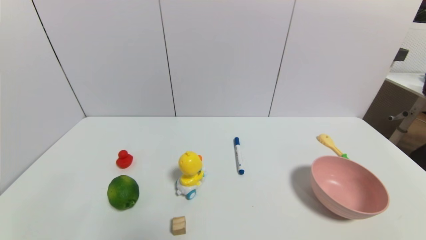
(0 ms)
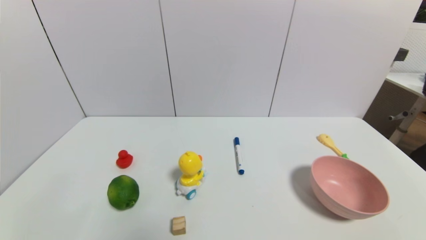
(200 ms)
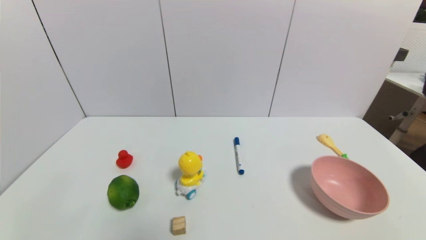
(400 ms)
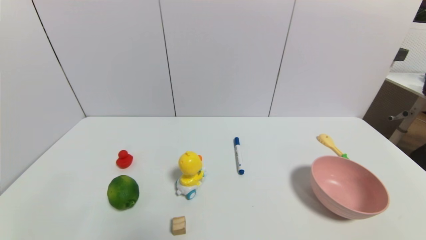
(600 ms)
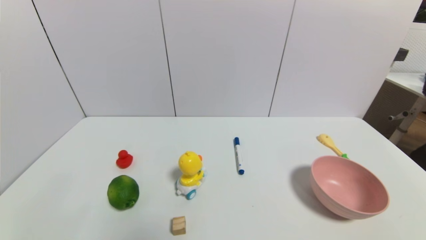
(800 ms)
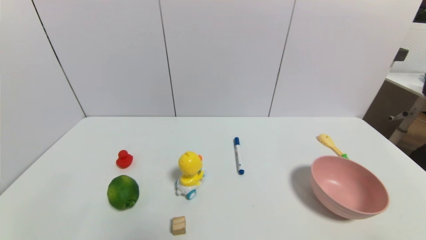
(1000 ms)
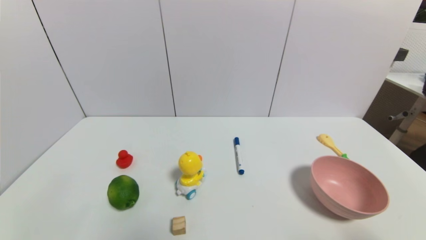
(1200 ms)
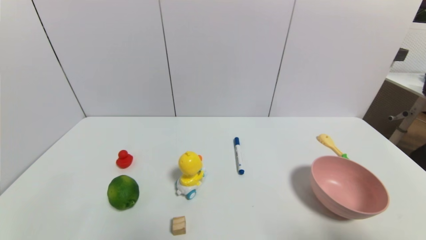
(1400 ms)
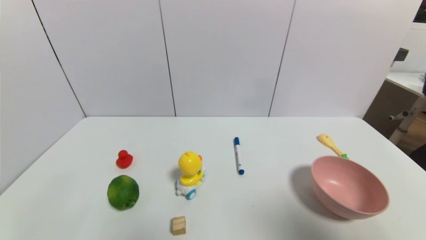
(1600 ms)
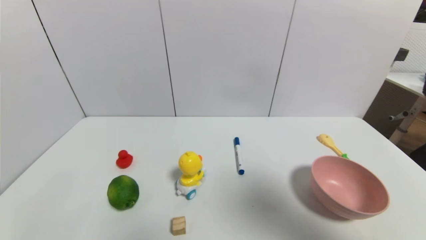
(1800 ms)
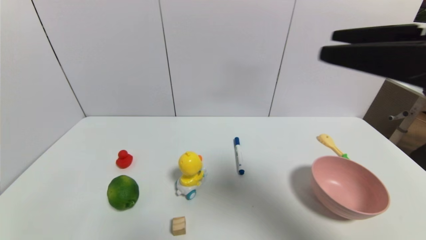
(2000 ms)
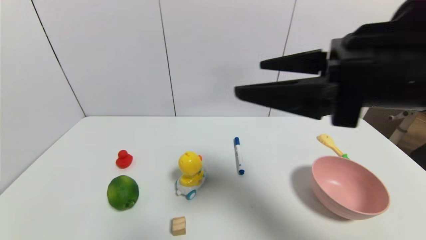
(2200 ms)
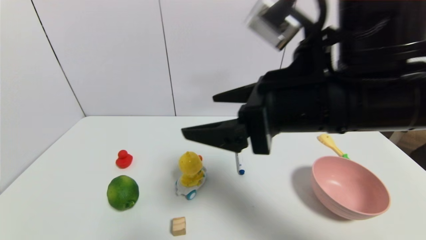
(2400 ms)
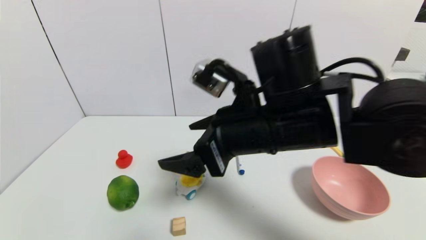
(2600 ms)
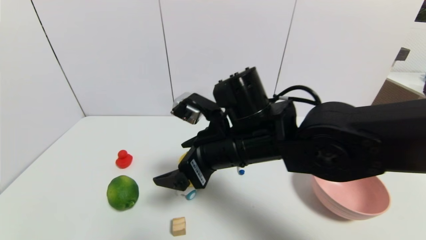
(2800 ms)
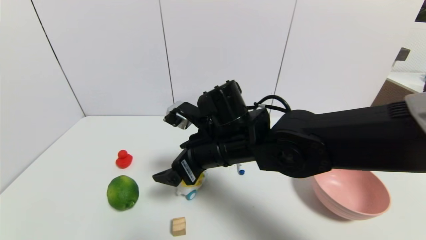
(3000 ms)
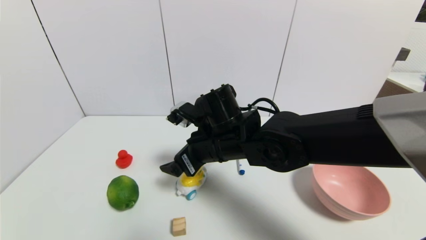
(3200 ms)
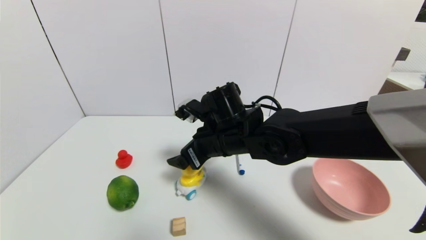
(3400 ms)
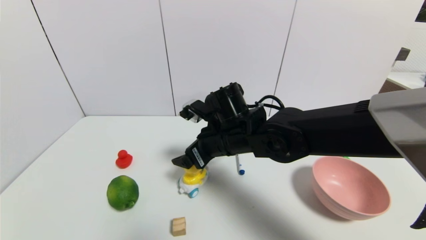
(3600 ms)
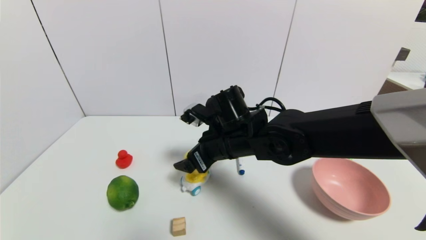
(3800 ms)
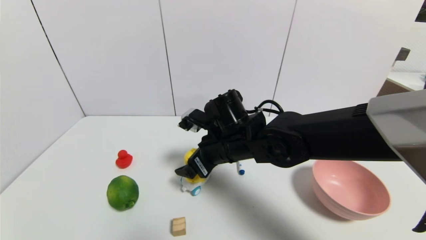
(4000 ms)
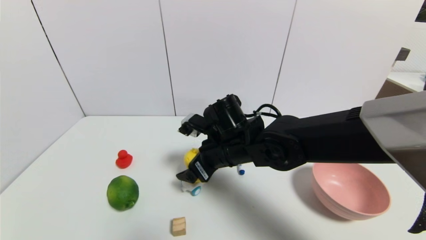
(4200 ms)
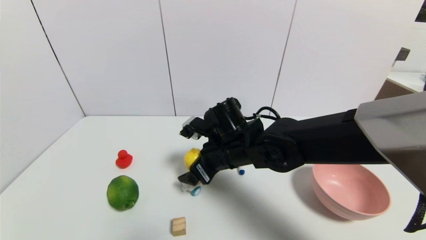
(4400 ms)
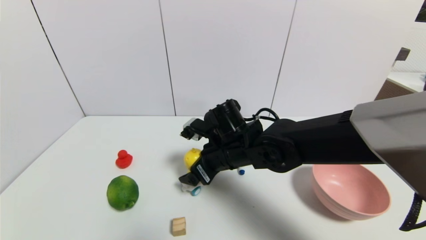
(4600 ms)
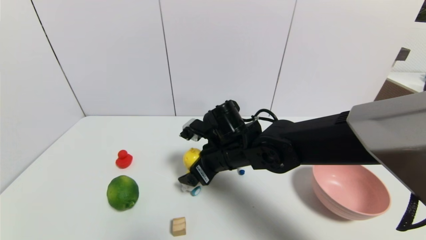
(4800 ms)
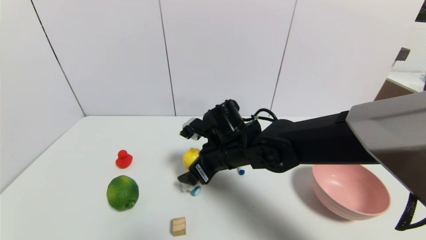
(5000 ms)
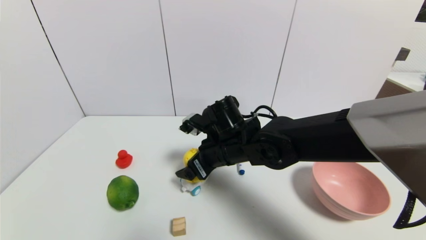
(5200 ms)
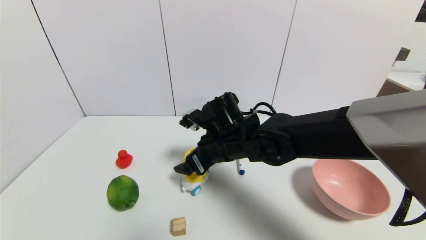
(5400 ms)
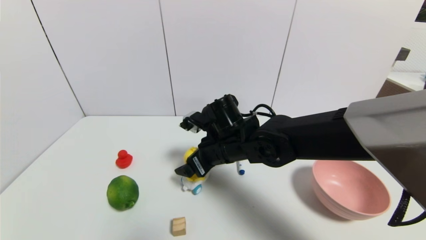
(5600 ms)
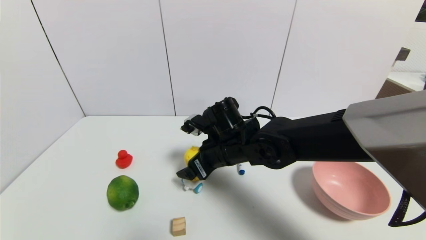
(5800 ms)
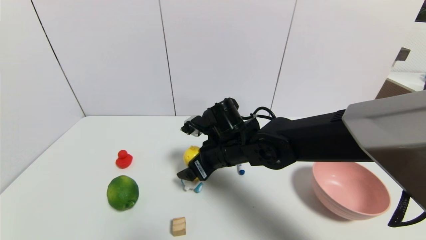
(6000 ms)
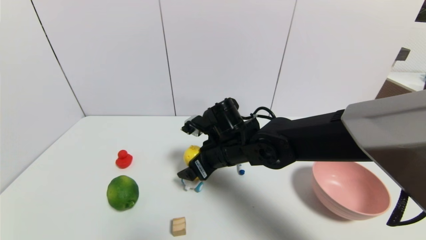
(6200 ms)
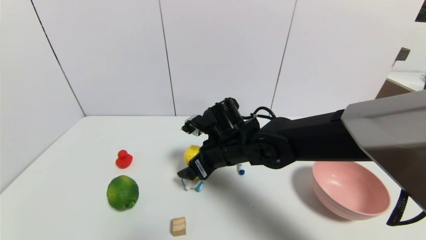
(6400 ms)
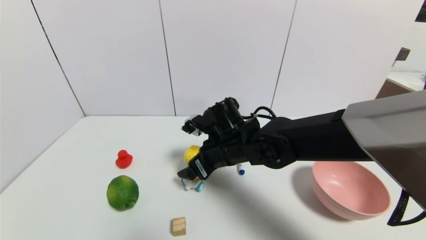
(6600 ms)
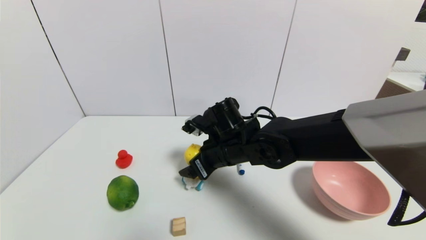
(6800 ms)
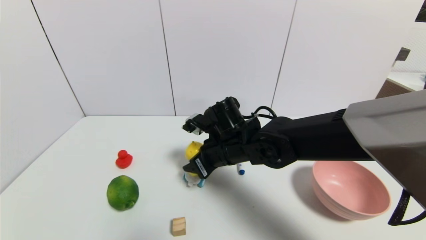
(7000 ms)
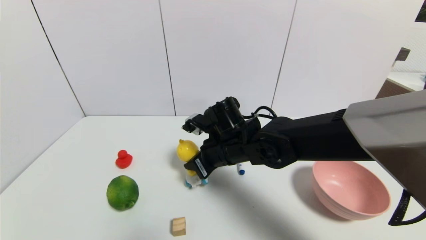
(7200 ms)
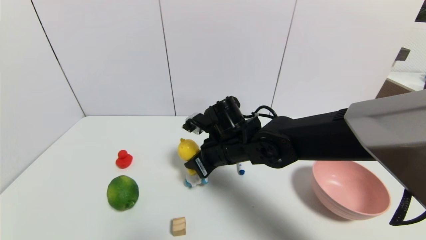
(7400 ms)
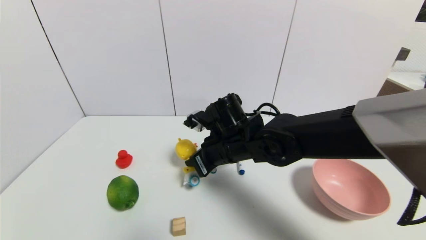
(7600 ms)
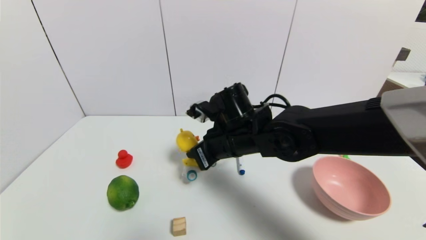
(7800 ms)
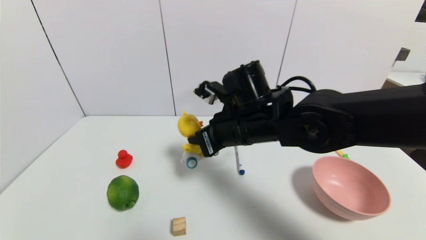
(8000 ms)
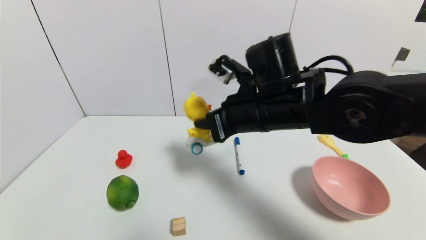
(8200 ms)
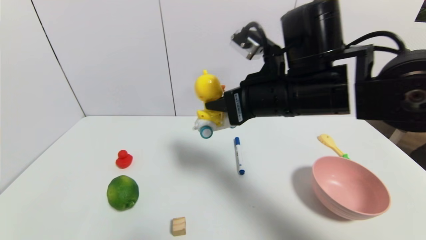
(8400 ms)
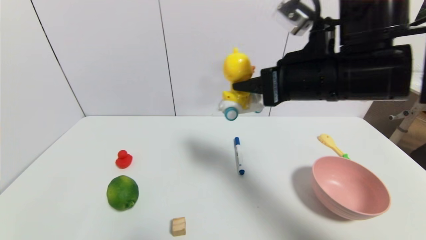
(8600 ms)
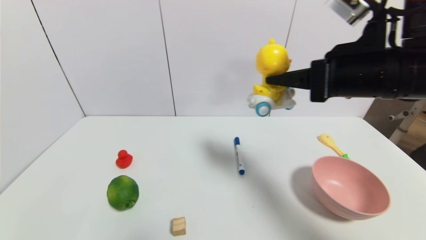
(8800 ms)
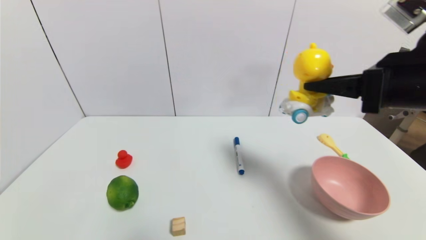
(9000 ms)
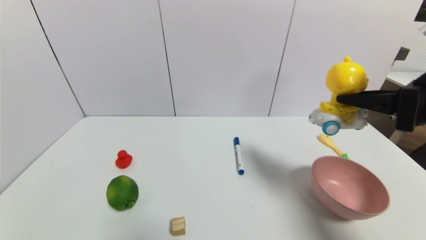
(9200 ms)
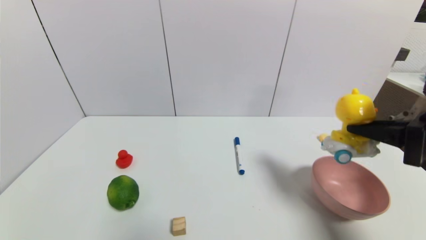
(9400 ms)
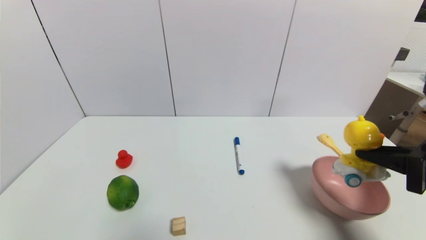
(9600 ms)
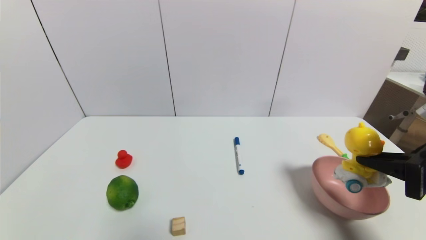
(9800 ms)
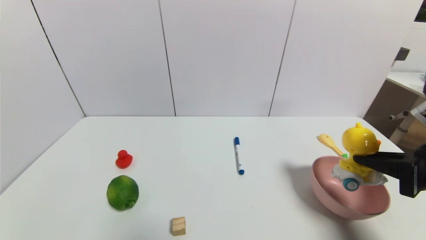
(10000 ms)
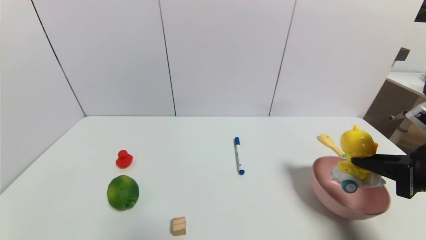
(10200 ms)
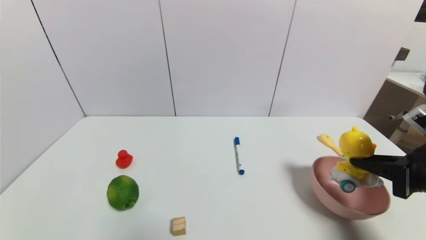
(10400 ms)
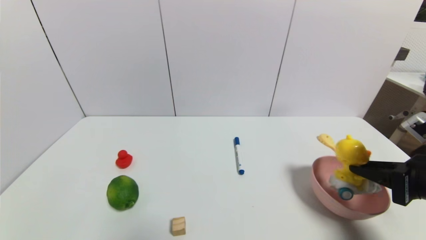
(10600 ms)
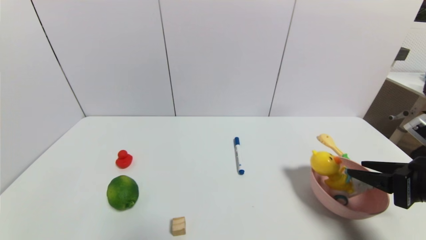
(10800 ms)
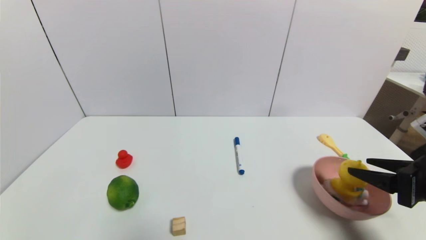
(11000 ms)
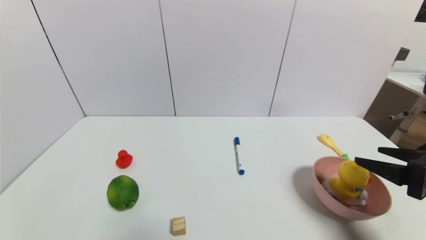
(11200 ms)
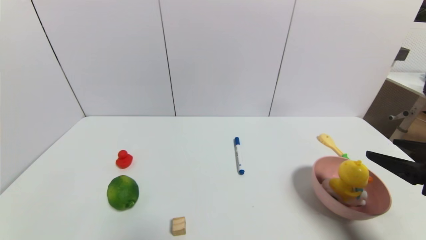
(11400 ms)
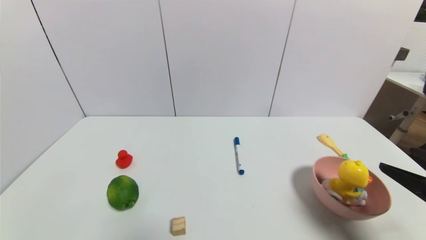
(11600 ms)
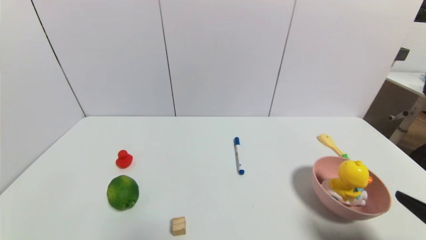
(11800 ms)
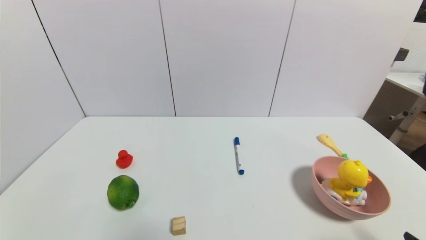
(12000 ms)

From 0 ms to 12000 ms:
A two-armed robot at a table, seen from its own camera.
Task of the whole recording: use a gripper to pick the target object and place on the pink bowl.
Step, from 0 ms to 7400 ms: Grasp the duck toy with the right gripper.
Step, from 7600 ms to 11400 ms: Place the duck toy on the pink bowl with the right gripper.
From 0 ms to 1600 ms: The right gripper travels upward by roughly 25 cm.
From 1600 ms to 3000 ms: The right gripper is displaced to the left, forward and downward by roughly 40 cm.
From 3000 ms to 4400 ms: The right gripper changes place by some 5 cm.
From 4400 ms to 6000 ms: There are only small adjustments of the grippers.
From 6000 ms to 7600 ms: The right gripper closes up.
From 7600 ms to 9000 ms: The right gripper is displaced to the right, upward and backward by some 30 cm.
From 9000 ms to 10400 ms: The right gripper shifts some 15 cm downward and to the right.
From 10400 ms to 12000 ms: The right gripper is displaced backward by about 15 cm, and opens.

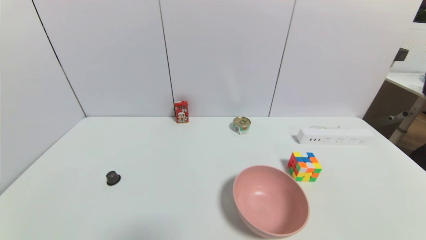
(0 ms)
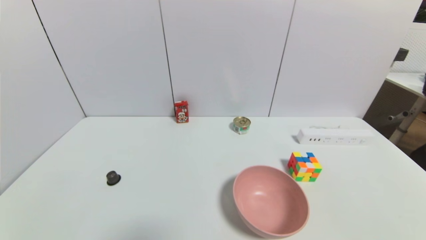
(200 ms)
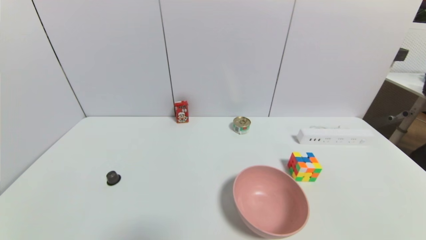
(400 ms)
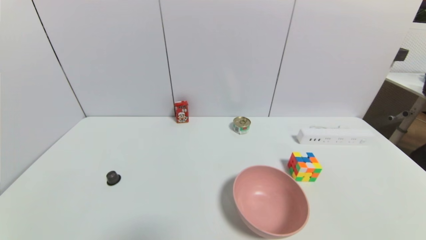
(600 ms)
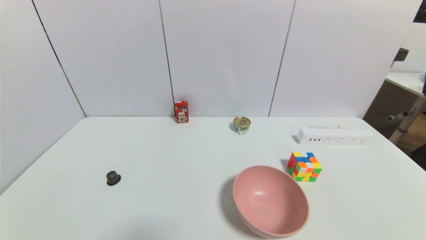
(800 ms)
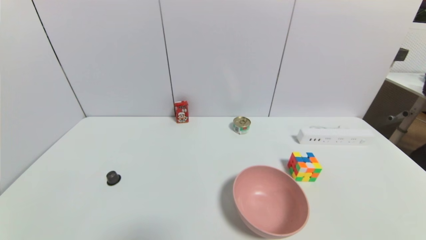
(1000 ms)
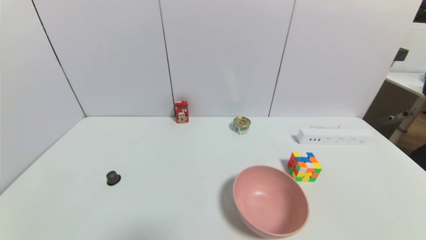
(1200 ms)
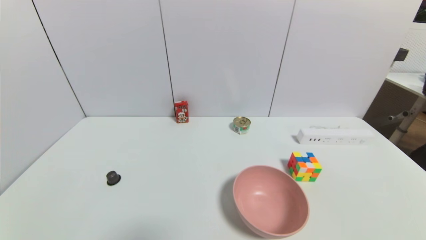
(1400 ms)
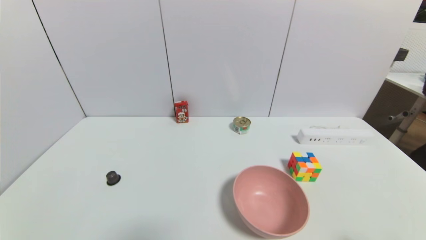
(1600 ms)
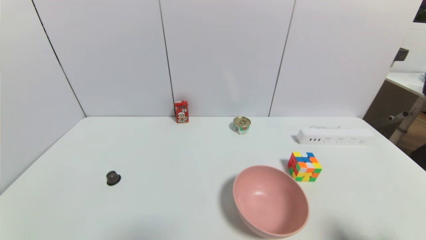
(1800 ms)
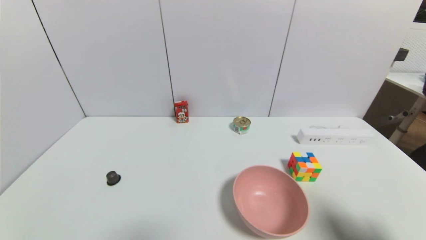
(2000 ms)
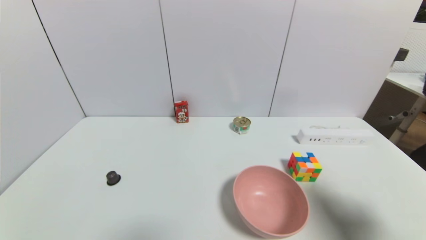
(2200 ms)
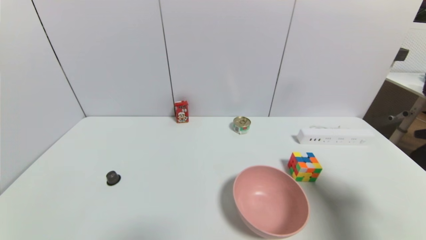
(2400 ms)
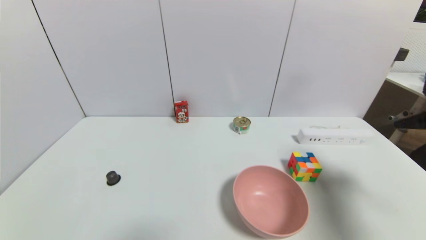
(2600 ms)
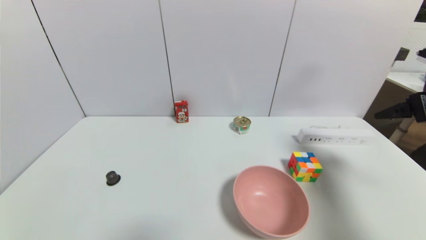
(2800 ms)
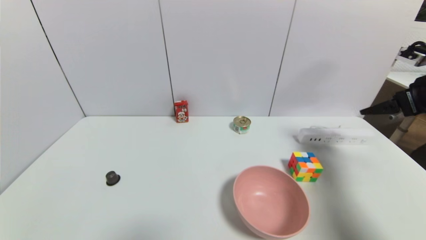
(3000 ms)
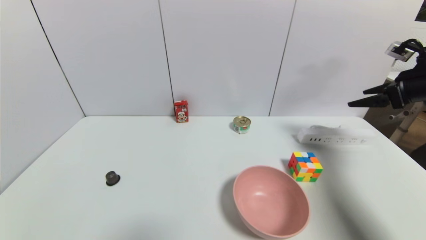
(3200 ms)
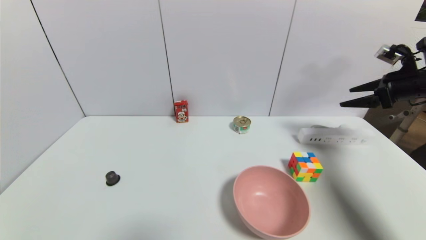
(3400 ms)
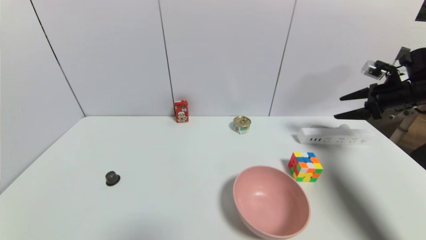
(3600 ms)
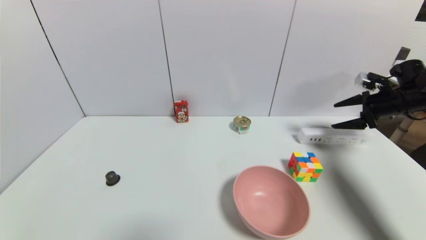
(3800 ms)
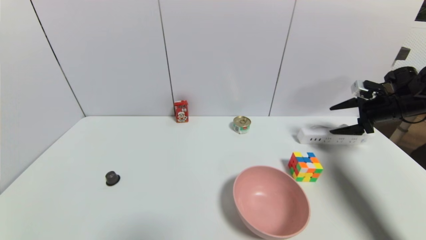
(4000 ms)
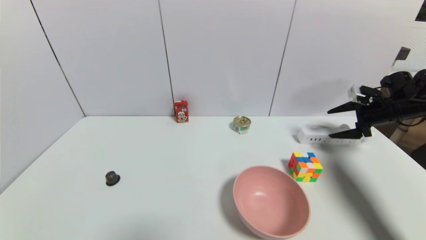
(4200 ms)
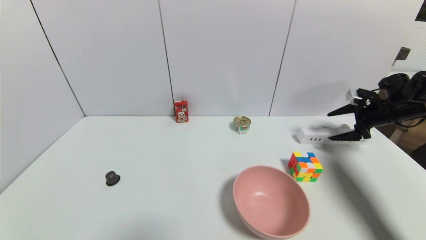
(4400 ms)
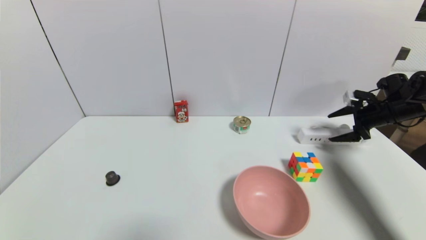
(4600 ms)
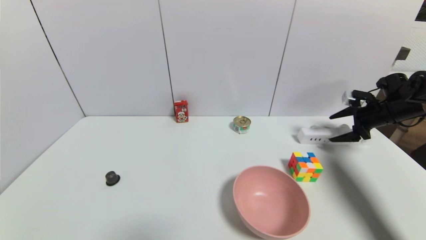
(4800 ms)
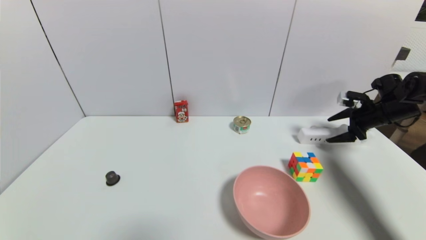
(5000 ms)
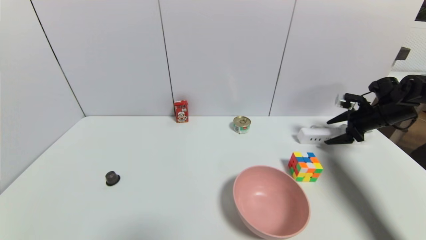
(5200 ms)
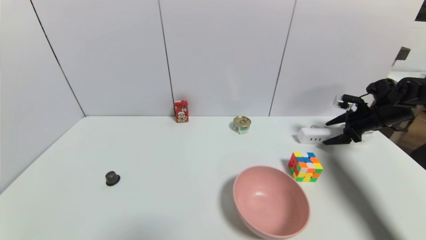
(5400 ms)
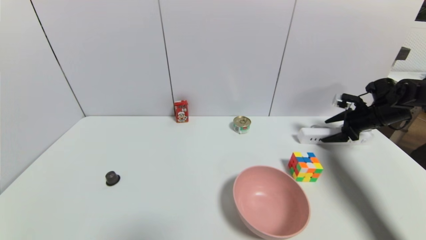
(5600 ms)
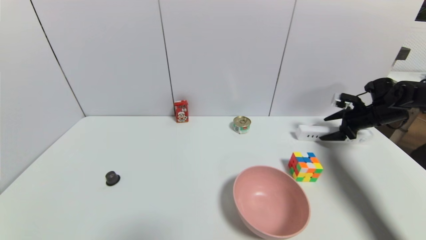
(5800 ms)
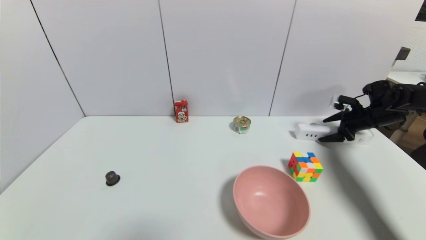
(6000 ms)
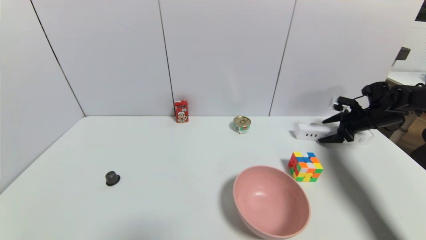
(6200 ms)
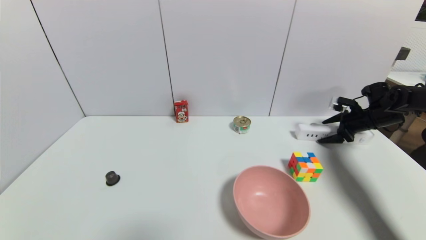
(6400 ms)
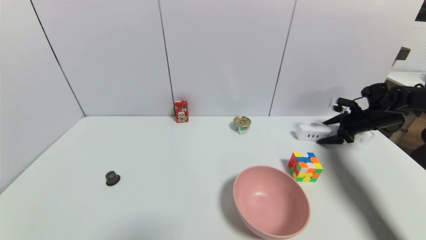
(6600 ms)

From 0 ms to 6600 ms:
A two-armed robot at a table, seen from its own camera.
Task of the whole recording: use a gripper to pick the target object and place on the pink bowl.
From 1600 ms to 3200 ms: The right gripper heads forward, covering approximately 30 cm.
From 3200 ms to 5000 ms: The right gripper travels downward and forward by some 15 cm.
From 5000 ms to 6600 ms: There are only small adjustments of the grippers.
